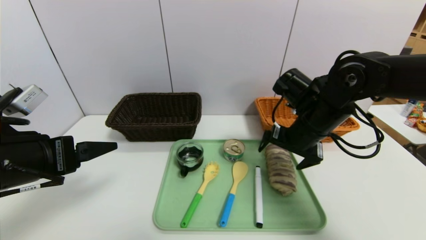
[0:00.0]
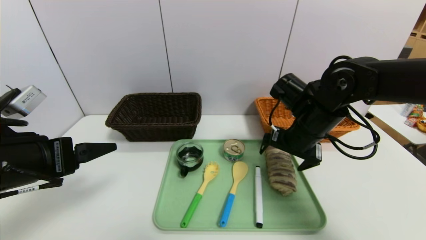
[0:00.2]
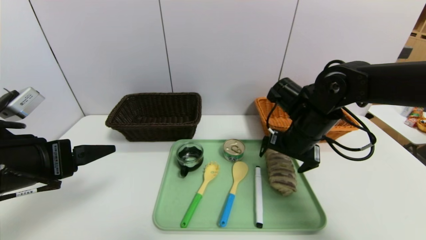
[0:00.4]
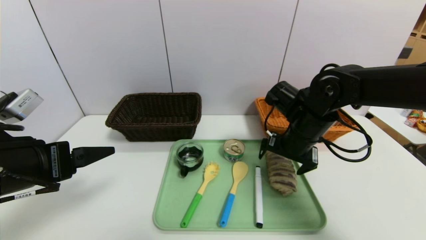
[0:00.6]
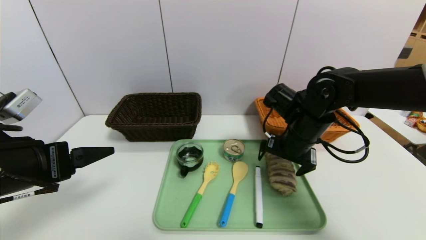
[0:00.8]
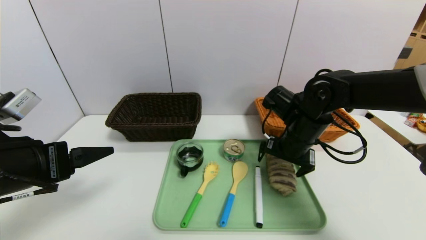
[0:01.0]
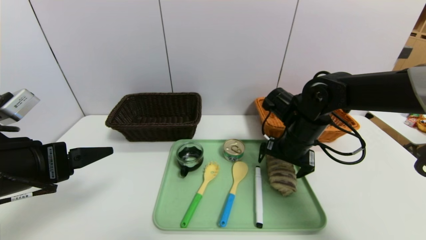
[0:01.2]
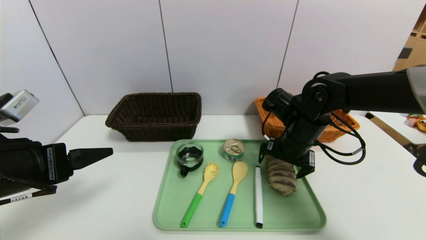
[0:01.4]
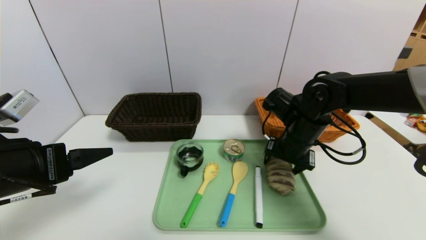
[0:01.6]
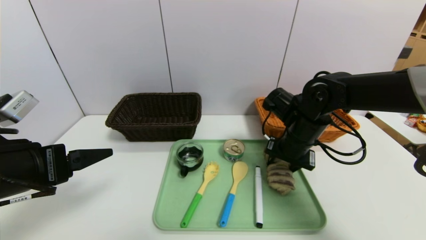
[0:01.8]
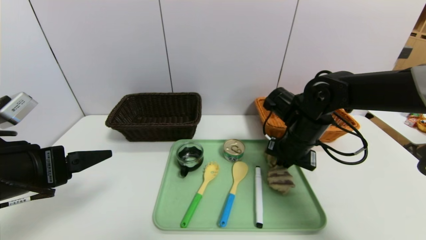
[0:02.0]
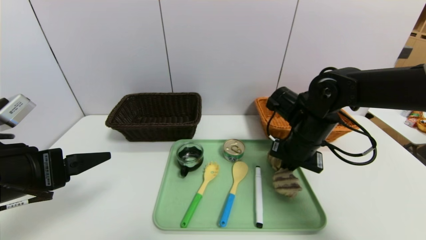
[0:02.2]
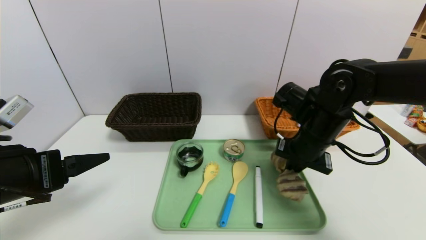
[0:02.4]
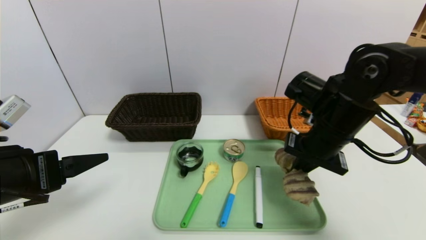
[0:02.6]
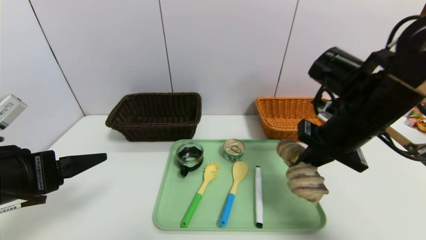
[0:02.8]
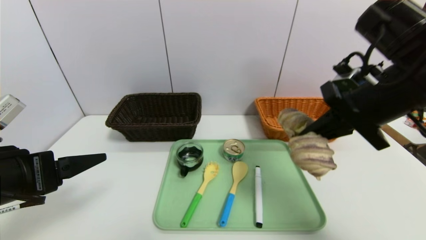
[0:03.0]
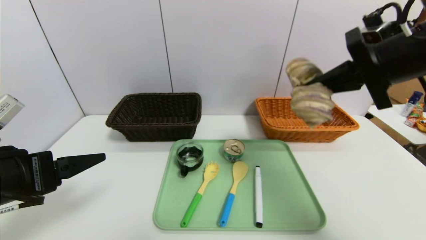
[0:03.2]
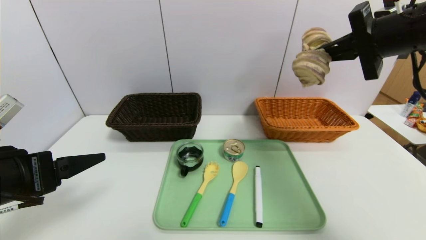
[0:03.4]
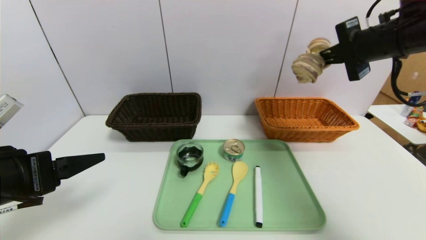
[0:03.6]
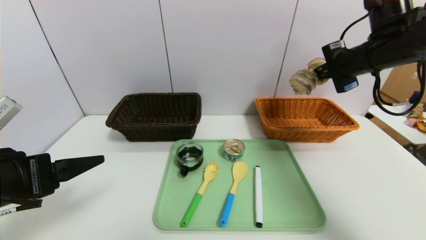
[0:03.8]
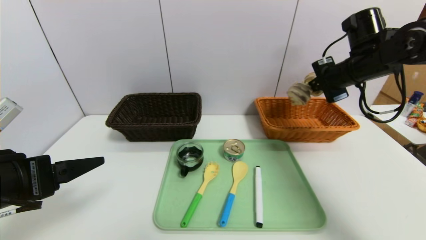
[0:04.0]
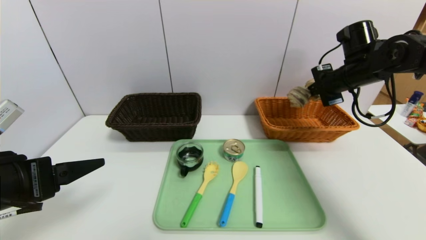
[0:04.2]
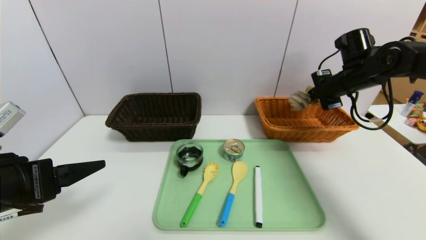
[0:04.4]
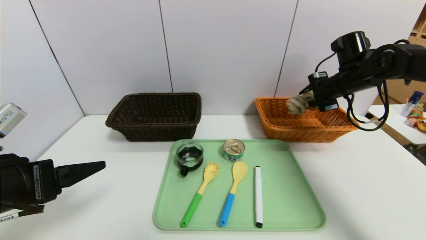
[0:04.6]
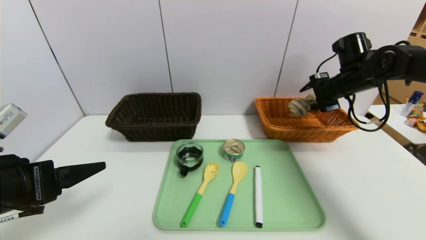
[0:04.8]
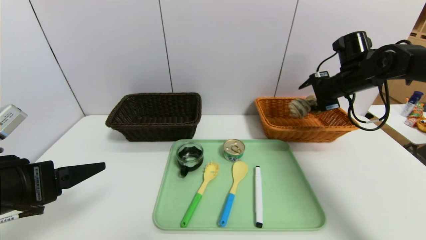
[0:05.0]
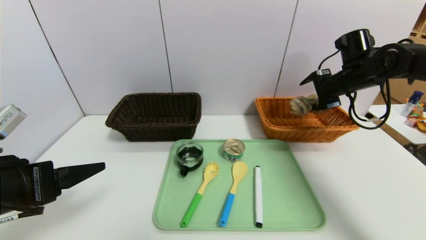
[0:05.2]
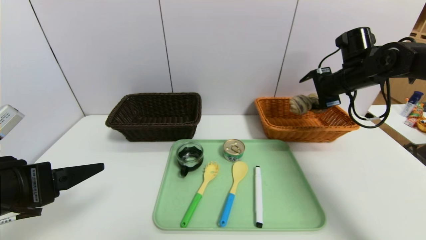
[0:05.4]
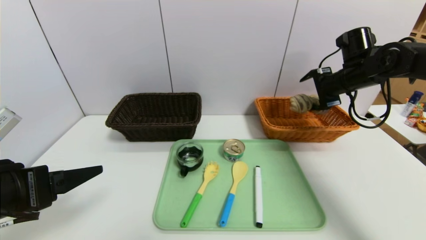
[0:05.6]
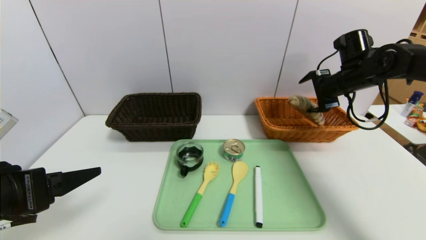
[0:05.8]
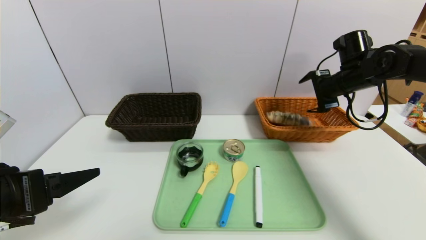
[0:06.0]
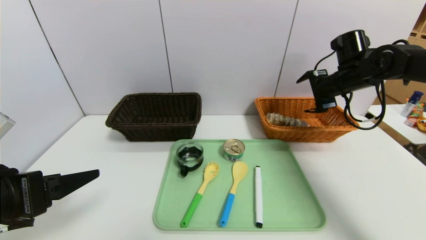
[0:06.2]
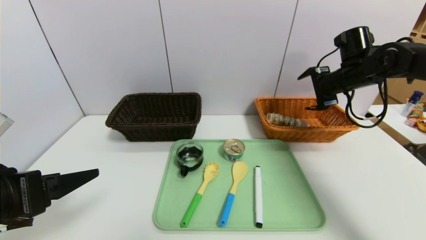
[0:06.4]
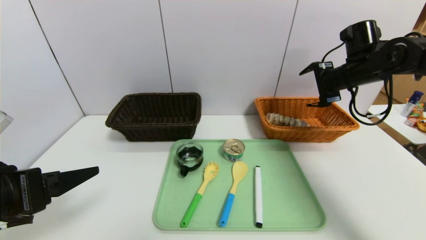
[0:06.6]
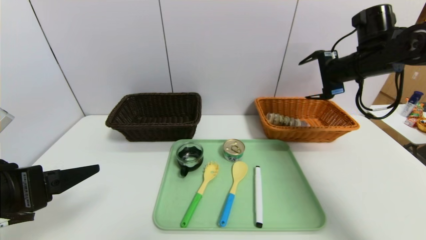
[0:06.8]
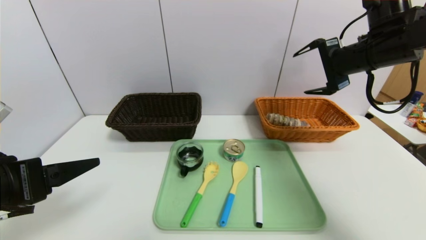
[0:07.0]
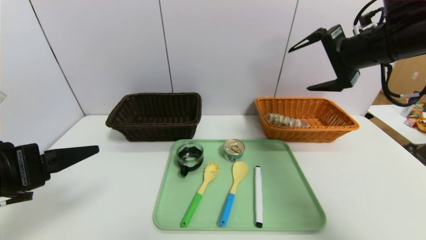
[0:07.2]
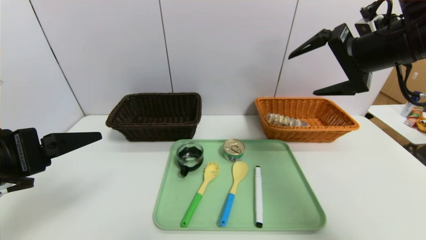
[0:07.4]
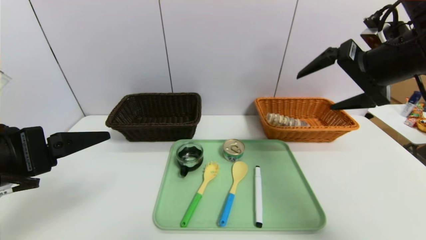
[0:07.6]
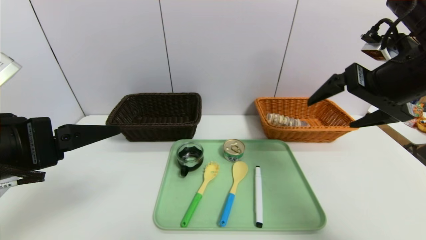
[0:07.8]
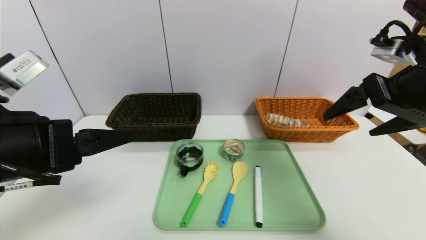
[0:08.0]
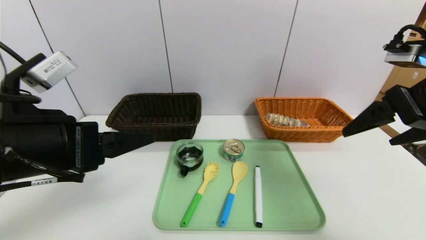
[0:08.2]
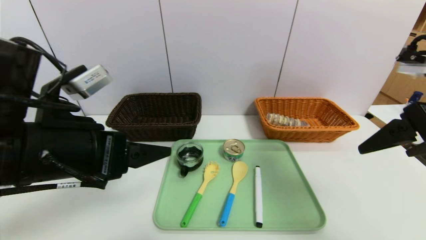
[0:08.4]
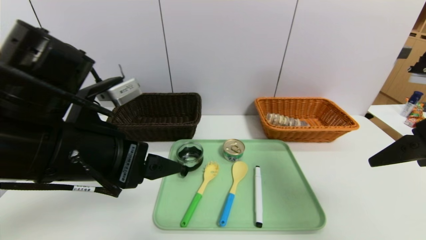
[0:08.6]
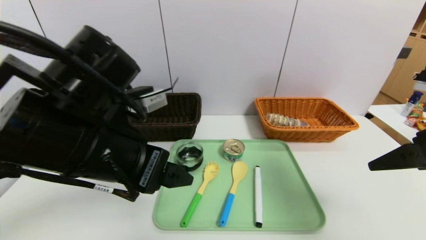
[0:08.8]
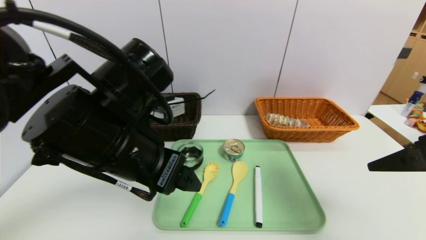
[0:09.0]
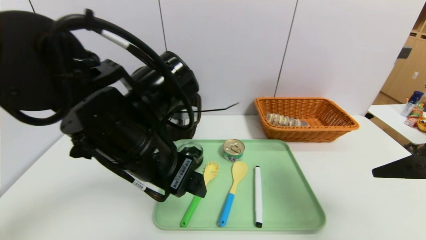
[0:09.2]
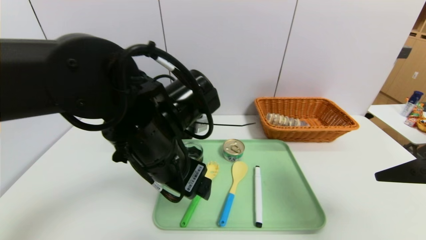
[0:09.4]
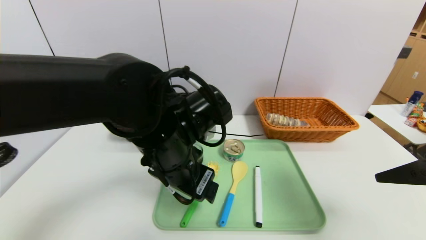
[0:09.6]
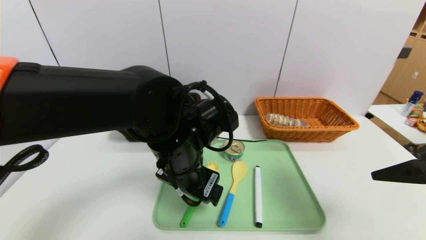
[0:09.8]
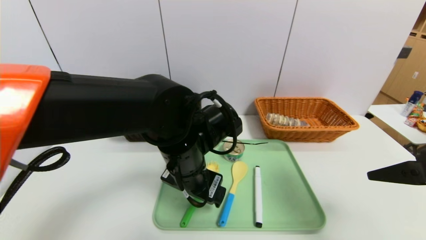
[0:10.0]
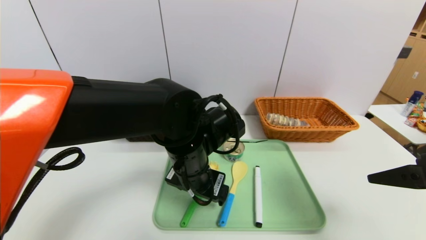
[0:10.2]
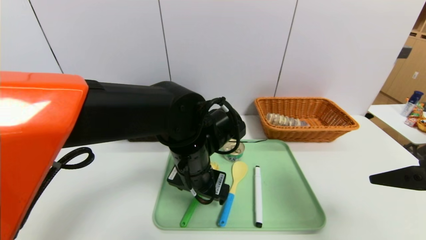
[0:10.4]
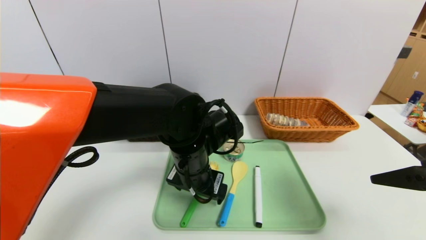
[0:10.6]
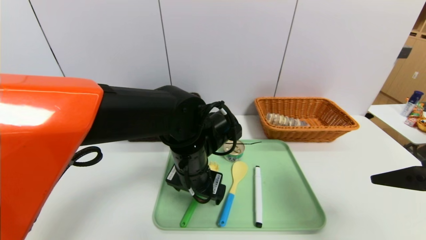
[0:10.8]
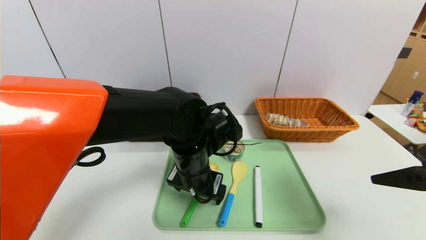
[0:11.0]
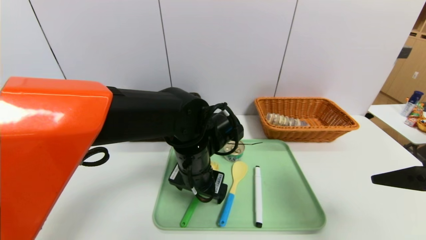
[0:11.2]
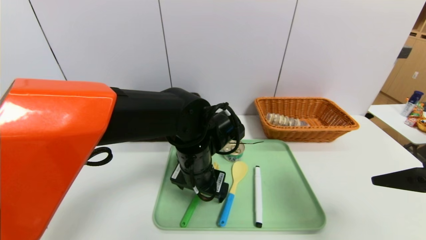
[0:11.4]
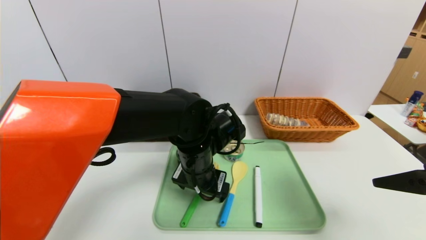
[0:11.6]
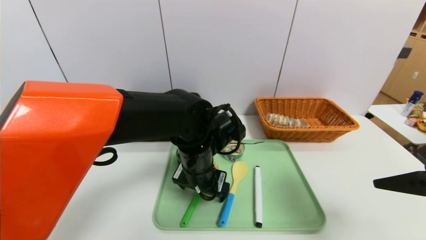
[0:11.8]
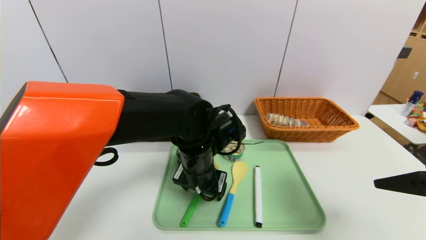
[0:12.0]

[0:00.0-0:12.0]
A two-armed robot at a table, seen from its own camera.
Task of the whole recording: place the food in the right basket with the right gripper, and place the non food items in the left basket with the left gripper.
Step, 0:00.0 to 0:06.0: Grasp the long bread and put it in the right basket.
0:00.0 to 0:01.6: The grippers make only small movements.
0:01.6 to 0:03.0: The right gripper goes approximately 20 cm upward and backward, and closes its fingers.
0:03.0 to 0:04.4: The right gripper travels forward and to the right by approximately 20 cm.
0:04.4 to 0:06.0: The right gripper opens up.
0:06.0 to 0:07.6: The right gripper is displaced backward and upward by approximately 20 cm.
0:07.6 to 0:09.0: The left gripper heads to the right and forward, covering some 15 cm; the right gripper shifts some 10 cm backward.
0:09.0 to 0:10.4: The left gripper goes roughly 15 cm downward, to the right and forward.
0:10.4 to 0:12.0: The grippers move only a little.

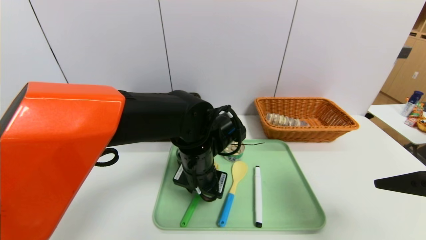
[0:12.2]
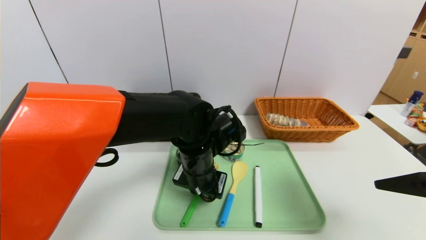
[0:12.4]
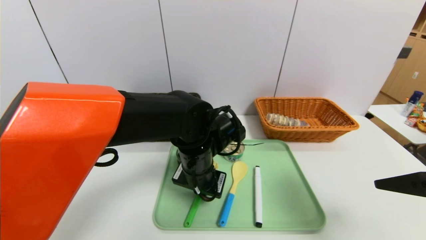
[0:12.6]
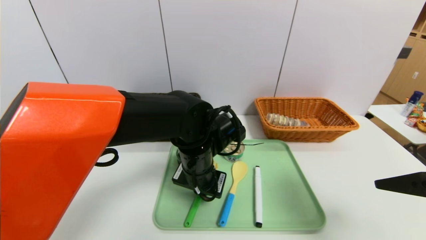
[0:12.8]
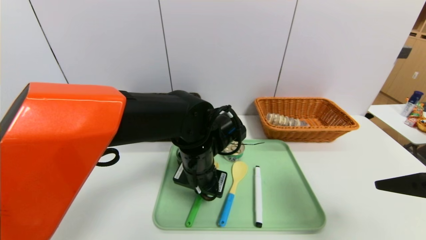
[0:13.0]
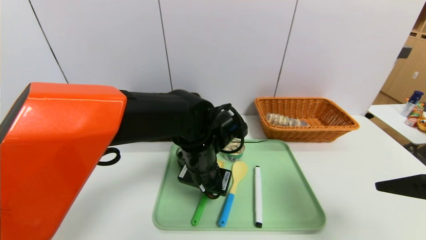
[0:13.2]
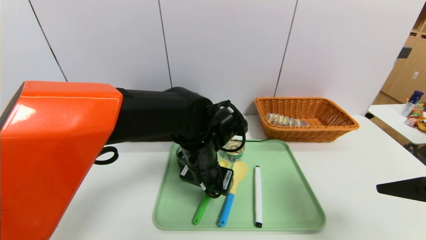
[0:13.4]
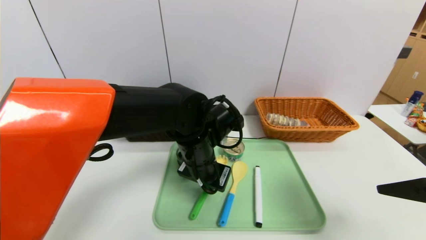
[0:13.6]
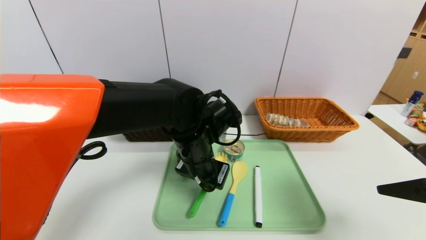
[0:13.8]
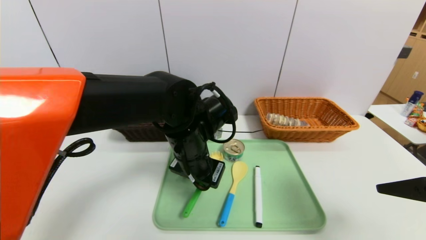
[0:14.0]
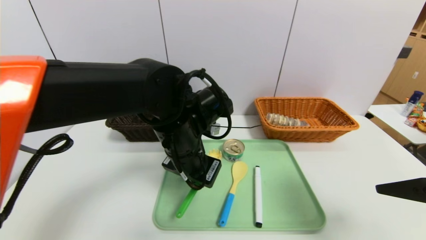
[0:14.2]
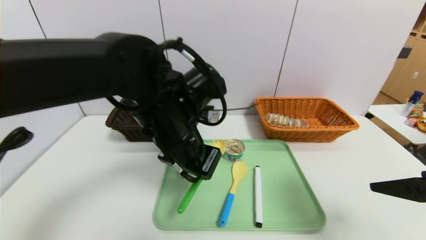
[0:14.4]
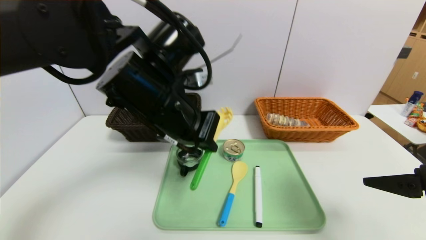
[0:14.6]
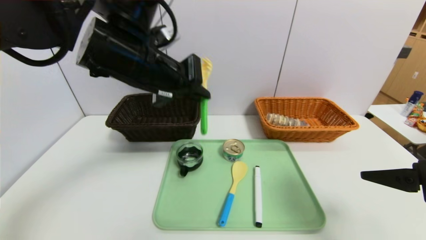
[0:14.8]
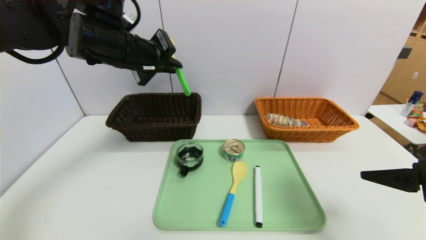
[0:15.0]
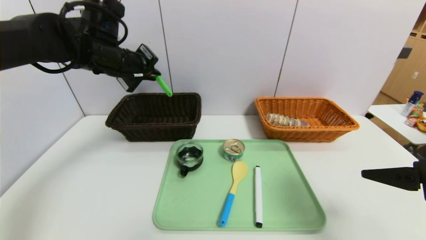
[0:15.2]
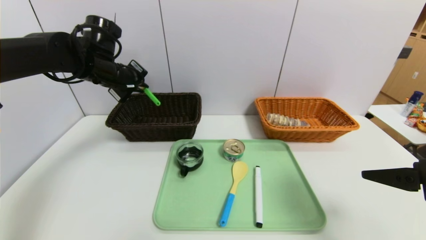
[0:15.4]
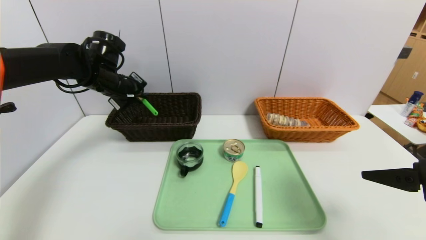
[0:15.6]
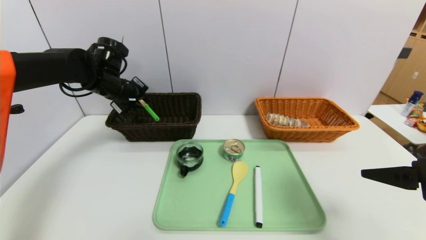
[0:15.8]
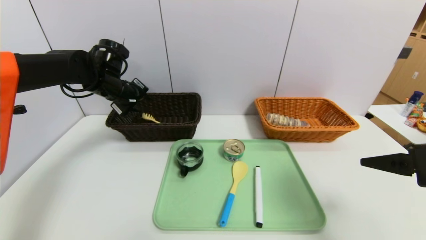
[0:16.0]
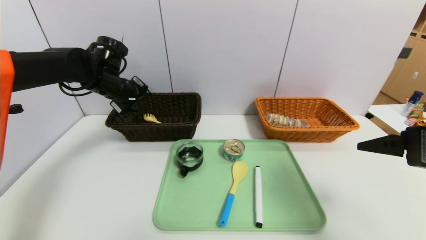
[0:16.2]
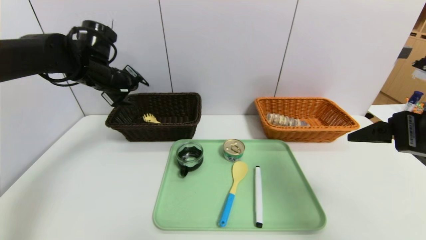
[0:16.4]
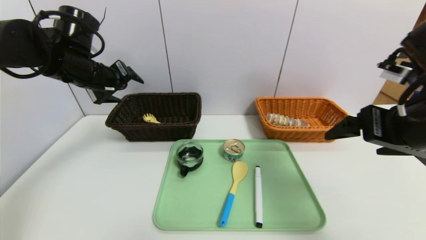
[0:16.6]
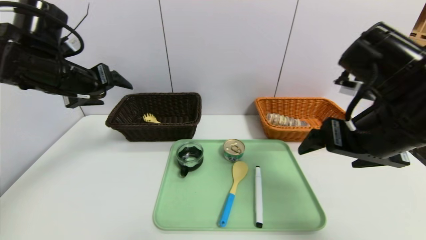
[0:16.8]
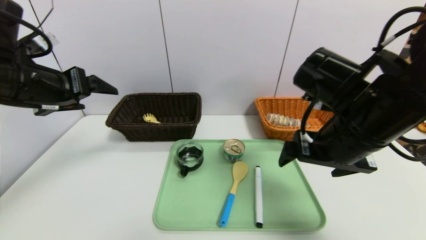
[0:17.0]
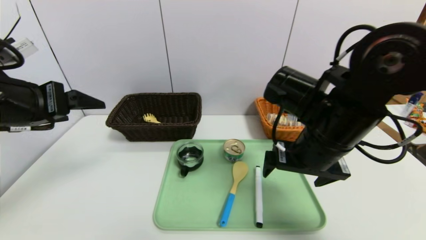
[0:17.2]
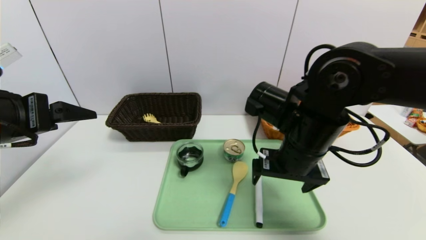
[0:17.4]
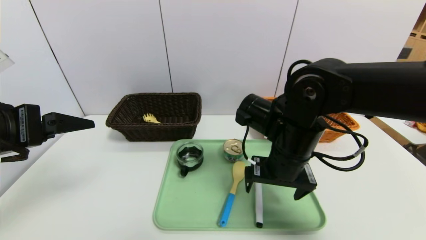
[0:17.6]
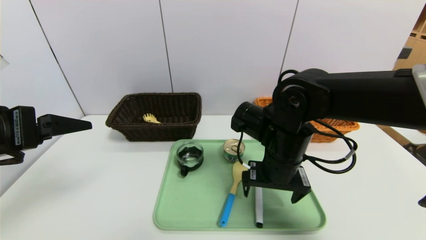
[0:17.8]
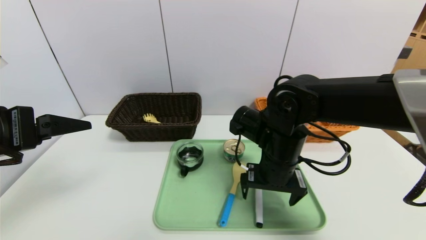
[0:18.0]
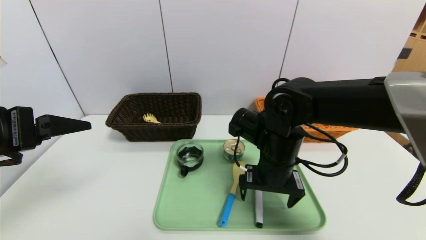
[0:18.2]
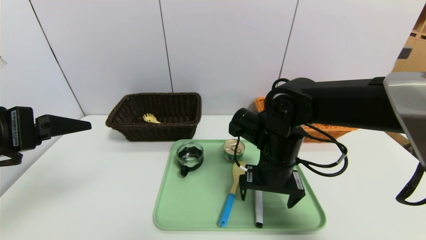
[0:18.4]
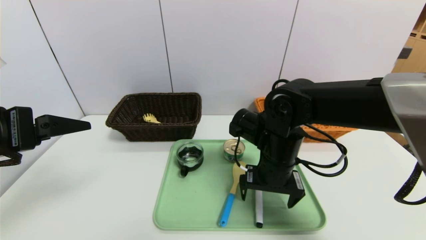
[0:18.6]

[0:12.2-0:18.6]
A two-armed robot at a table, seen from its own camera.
Task of the whole recording: place the food in the right basket with the right gripper, and place the non food items in the left basket with the left gripper.
Step, 0:12.2 to 0:16.0: Grasp the back scratcher and put it in the left basket.
0:12.2 to 0:13.8: The left gripper closes.
0:13.8 to 0:15.4: The left gripper travels to the left, forward and upward by roughly 25 cm.
0:15.4 to 0:17.0: The right gripper goes some 15 cm to the left and forward. Meanwhile the left gripper shifts roughly 15 cm backward, and opens up.
0:17.0 to 0:18.6: The left gripper is displaced backward by some 10 cm. The right gripper moves downward, to the left and forward, approximately 15 cm.
